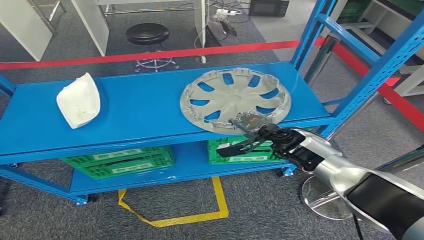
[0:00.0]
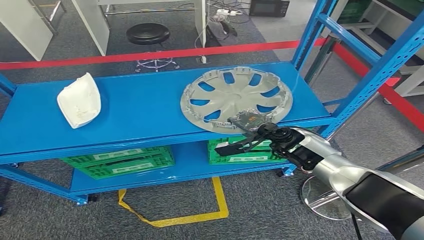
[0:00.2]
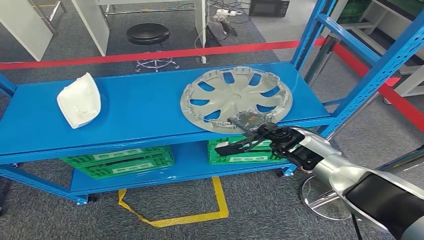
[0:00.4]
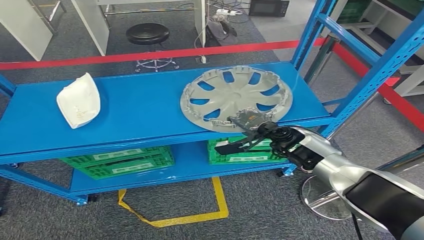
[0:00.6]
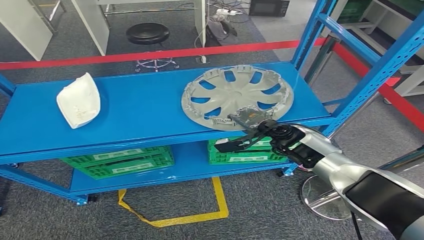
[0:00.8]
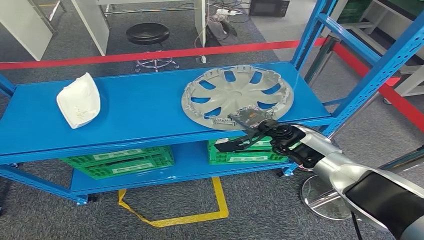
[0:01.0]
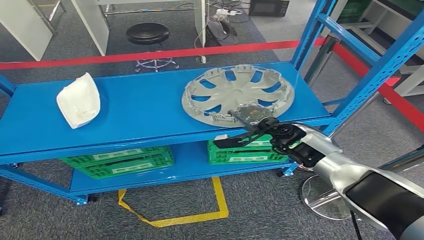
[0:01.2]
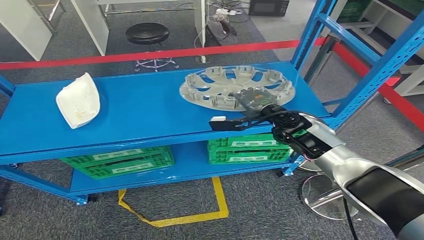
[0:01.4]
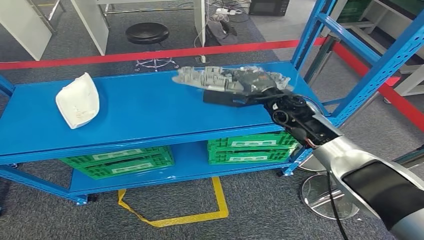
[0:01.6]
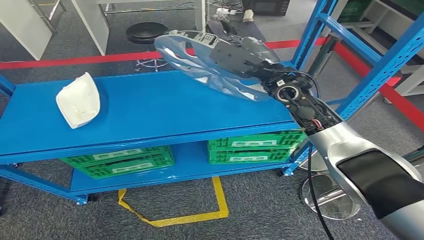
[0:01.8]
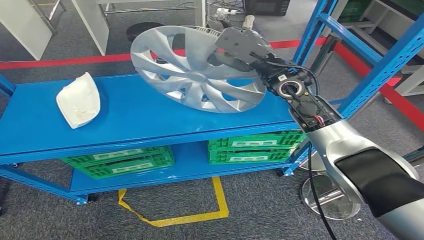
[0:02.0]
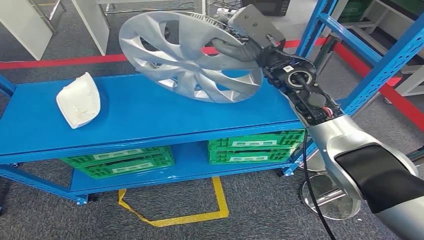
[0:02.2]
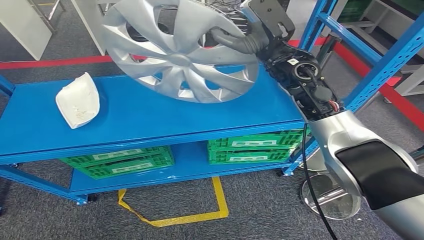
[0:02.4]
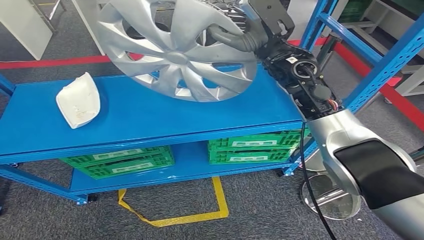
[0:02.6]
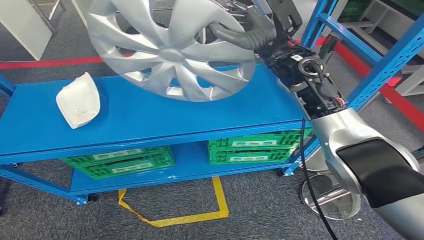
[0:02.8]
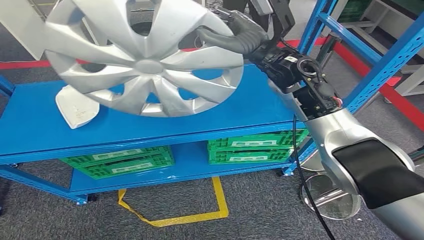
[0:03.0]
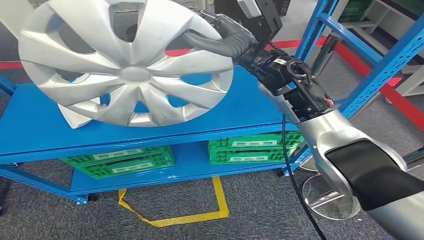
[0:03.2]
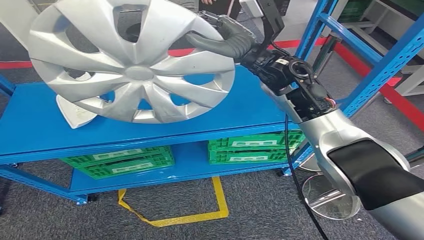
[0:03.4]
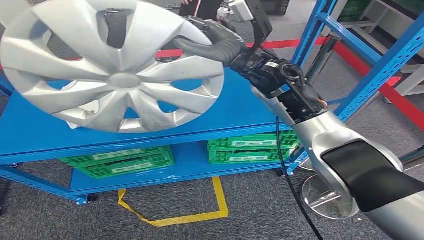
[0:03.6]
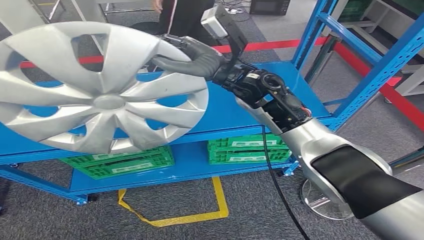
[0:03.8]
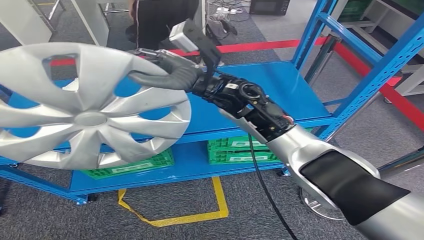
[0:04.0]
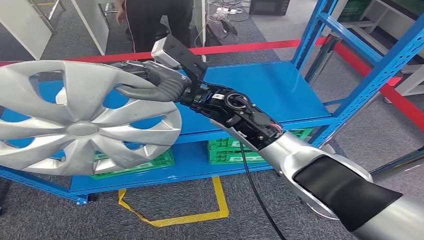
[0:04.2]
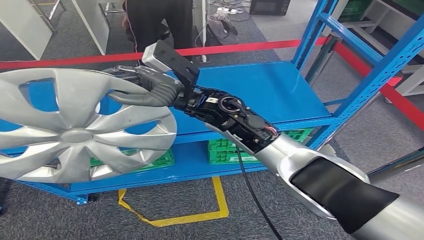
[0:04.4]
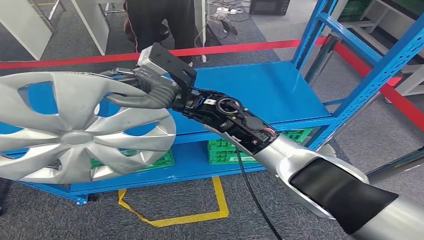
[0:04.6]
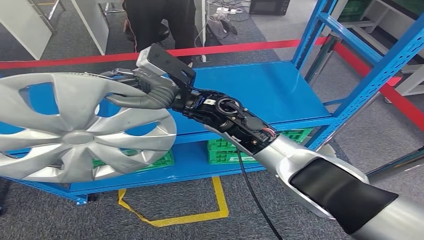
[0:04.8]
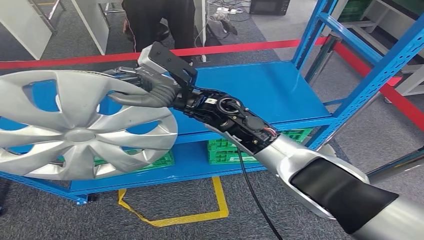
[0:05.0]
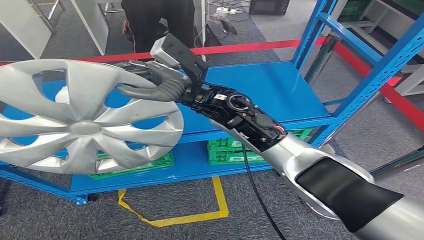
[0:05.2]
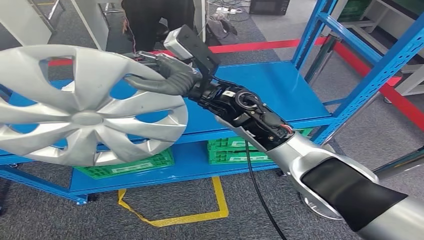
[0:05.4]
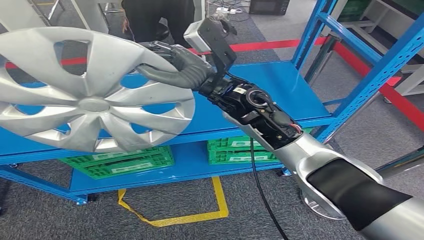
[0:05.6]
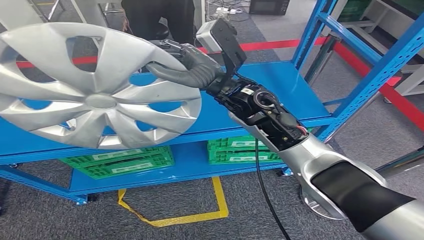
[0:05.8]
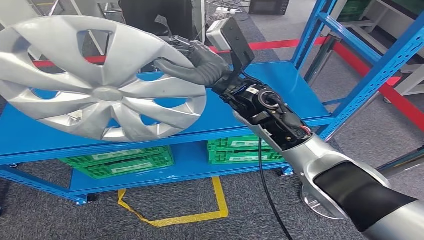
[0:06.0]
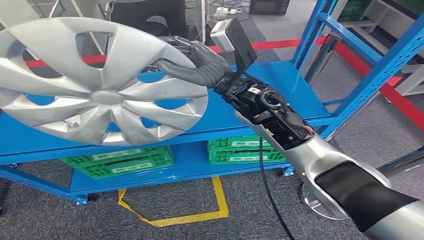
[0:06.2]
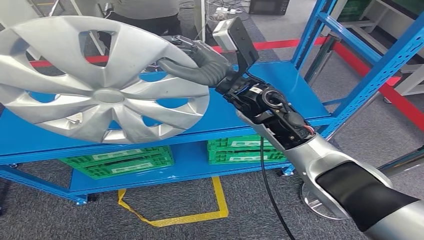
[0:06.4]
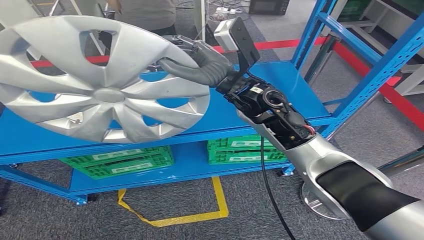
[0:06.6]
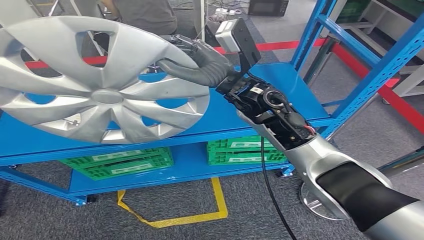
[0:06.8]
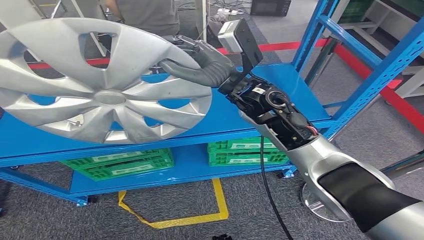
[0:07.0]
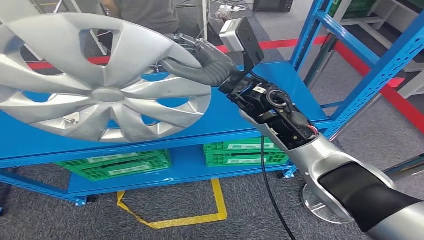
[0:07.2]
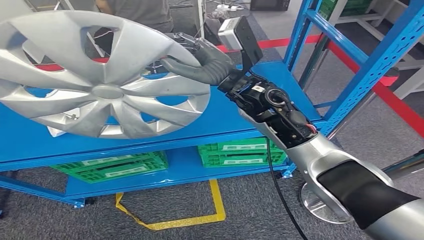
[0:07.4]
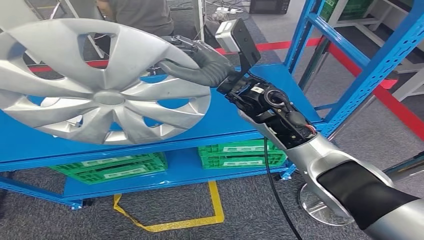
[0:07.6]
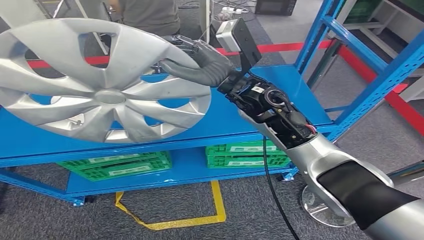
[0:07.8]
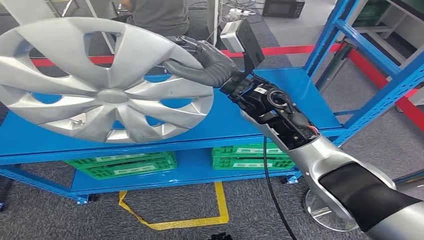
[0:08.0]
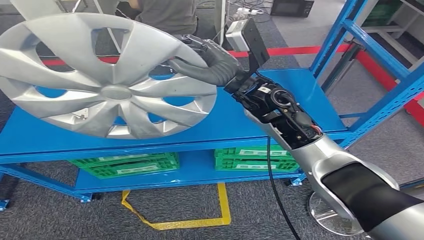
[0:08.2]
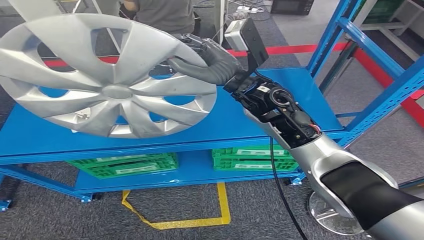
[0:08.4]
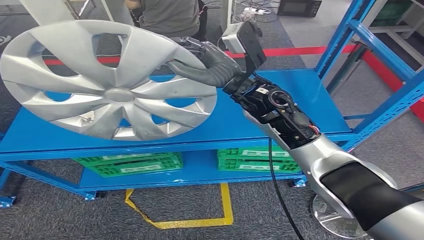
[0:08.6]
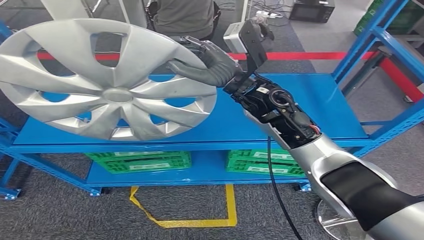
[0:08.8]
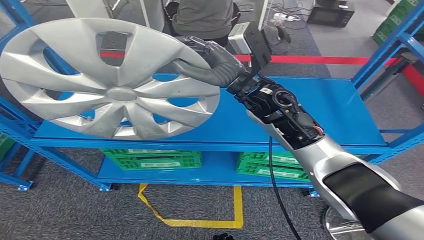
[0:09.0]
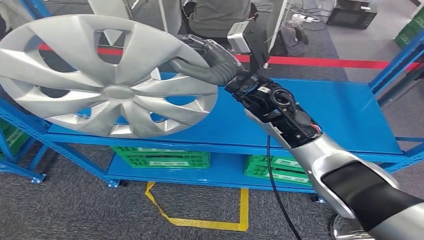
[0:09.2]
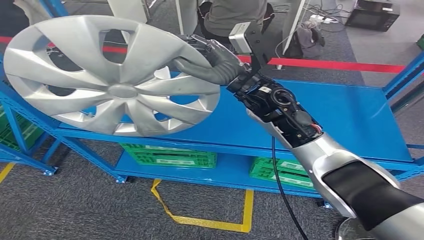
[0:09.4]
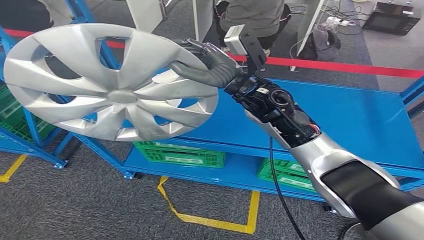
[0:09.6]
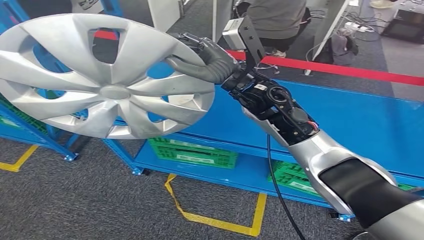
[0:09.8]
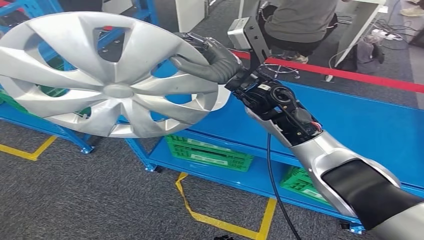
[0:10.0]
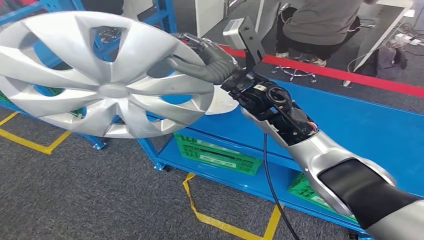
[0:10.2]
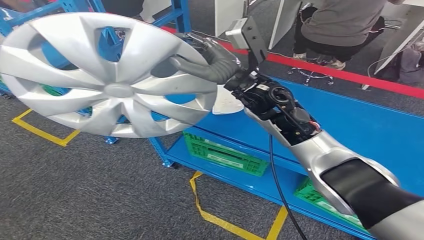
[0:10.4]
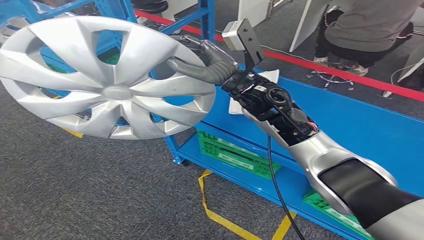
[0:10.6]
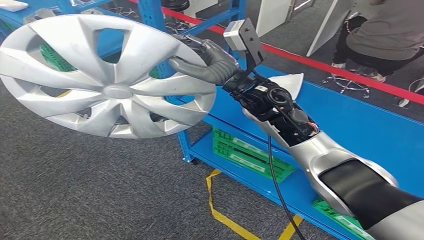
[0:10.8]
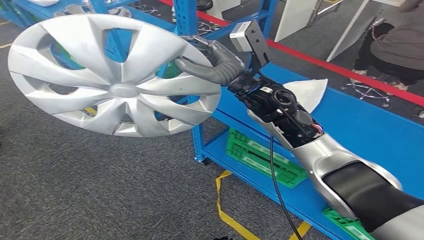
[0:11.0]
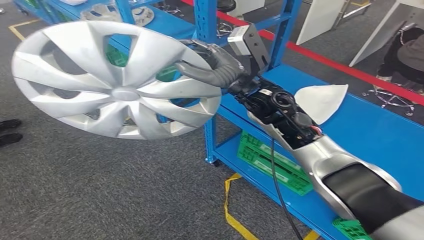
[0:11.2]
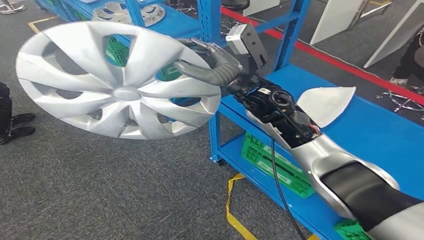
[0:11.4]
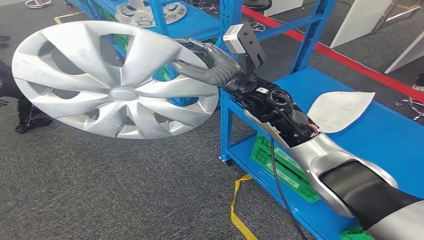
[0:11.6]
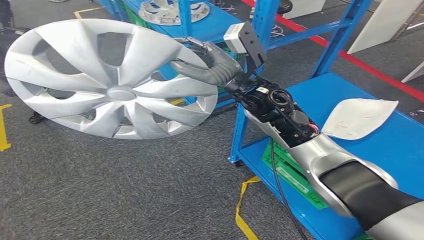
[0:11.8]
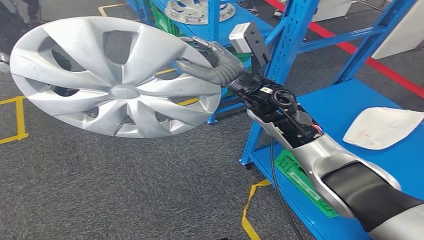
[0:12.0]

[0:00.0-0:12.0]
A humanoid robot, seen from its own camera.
Step, 0:00.0 to 0:03.2: Pick up the small component from the shelf.
0:00.0 to 0:01.6: The right hand shifts some 10 cm upward.

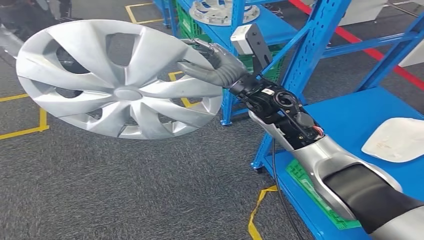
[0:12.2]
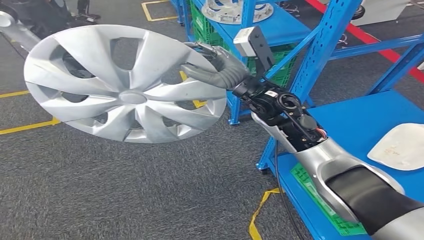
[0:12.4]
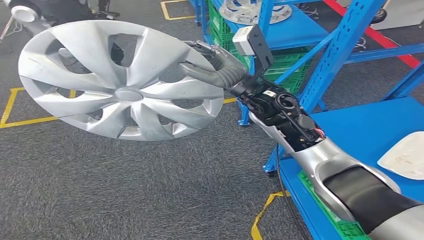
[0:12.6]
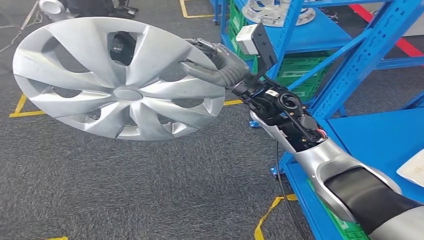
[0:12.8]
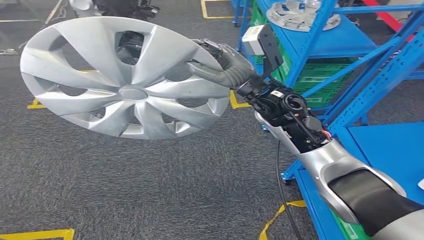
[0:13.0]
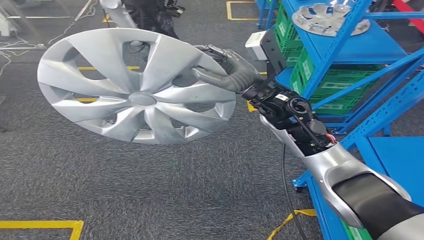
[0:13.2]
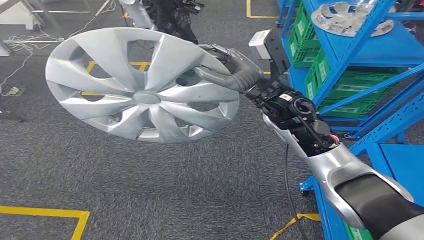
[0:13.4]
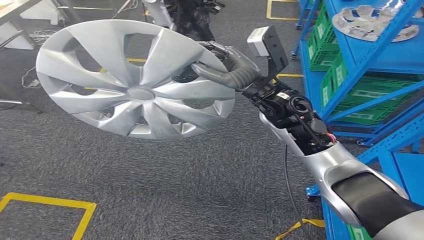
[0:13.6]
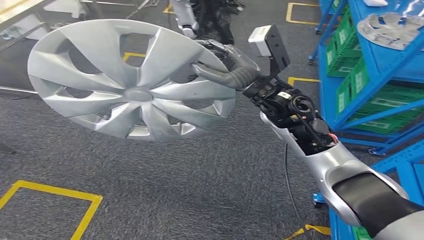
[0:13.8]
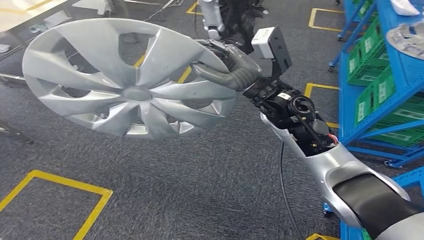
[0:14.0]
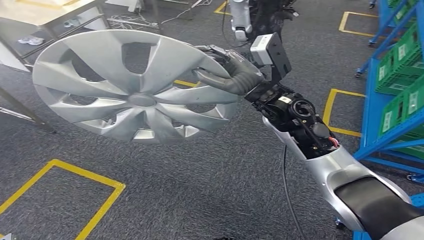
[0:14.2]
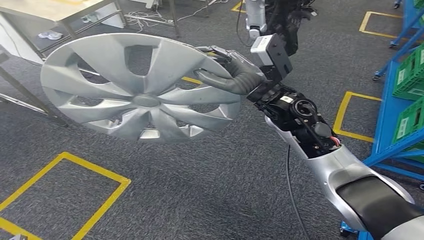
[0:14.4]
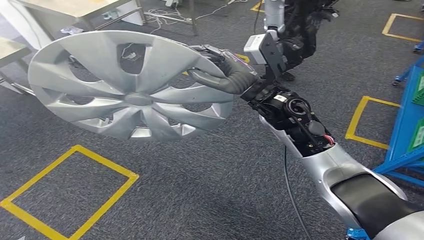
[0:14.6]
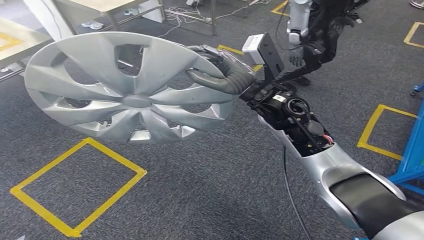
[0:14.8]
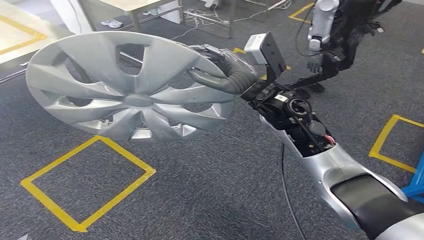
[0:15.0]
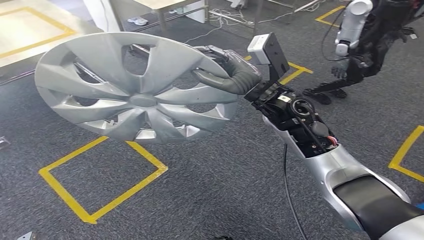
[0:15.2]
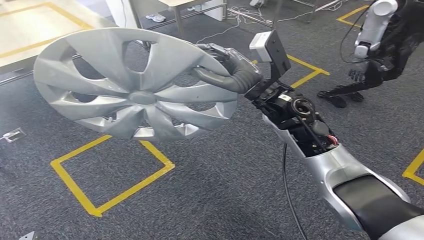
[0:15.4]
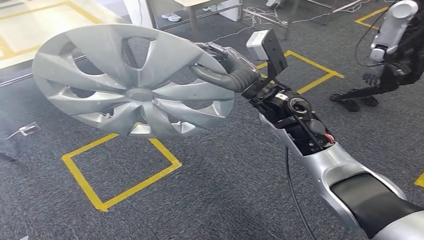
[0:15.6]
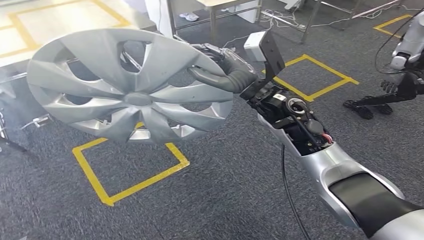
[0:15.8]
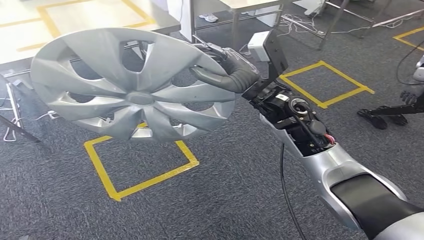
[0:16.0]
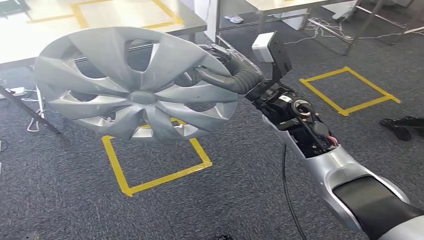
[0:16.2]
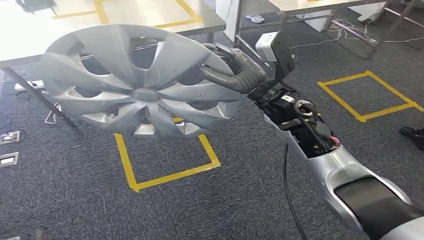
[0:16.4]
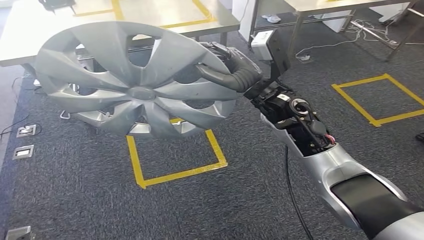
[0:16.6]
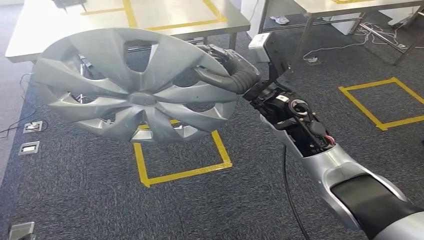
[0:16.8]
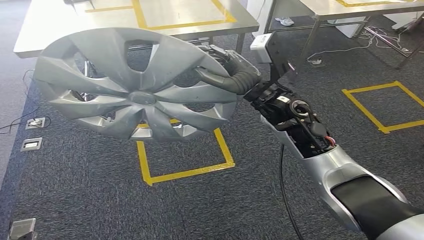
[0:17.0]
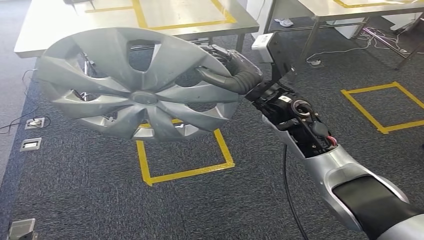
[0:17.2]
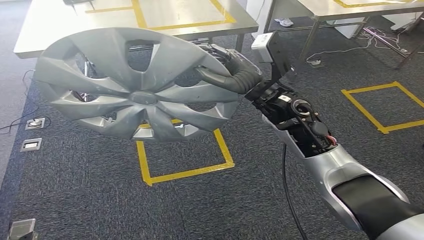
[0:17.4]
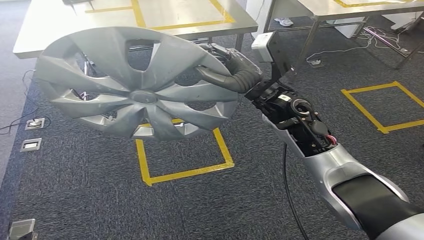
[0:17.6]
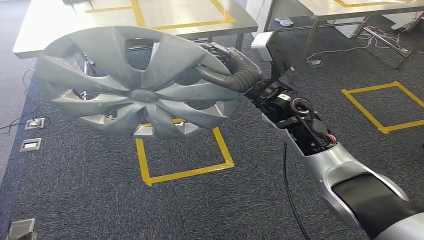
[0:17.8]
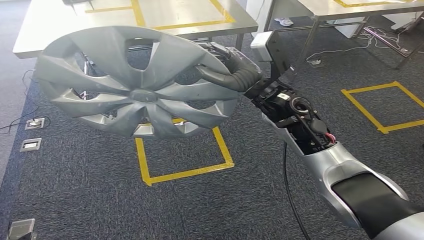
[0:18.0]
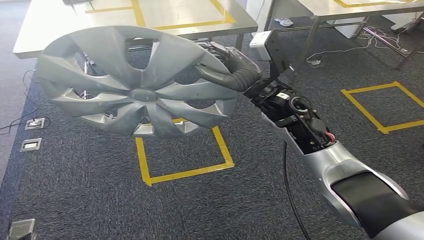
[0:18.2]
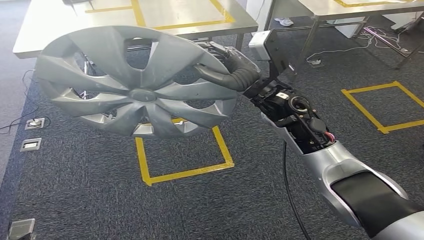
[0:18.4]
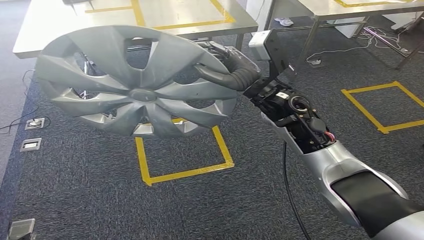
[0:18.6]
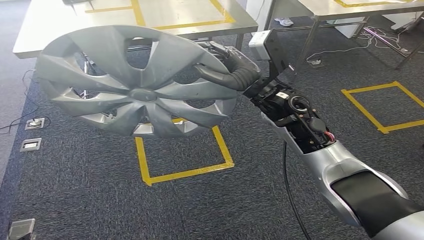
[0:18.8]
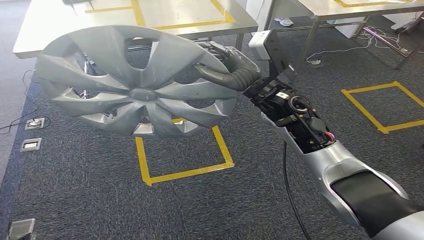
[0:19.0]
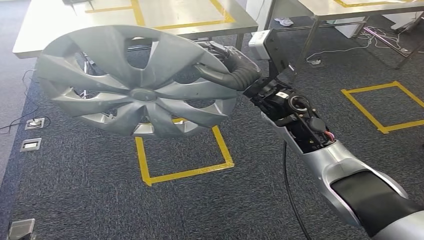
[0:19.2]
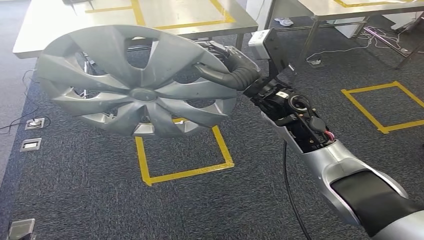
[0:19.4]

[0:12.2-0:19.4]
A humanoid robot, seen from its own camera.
0:18.0 to 0:19.4: The two hands keep their place.
